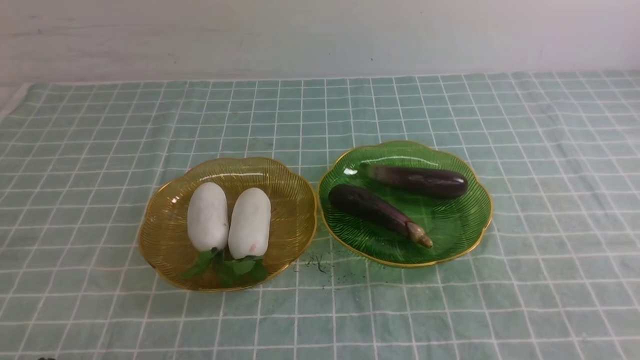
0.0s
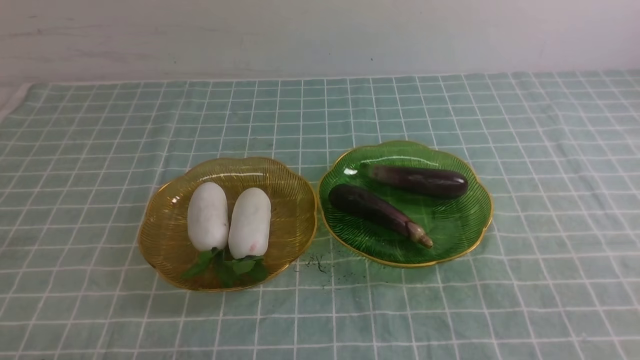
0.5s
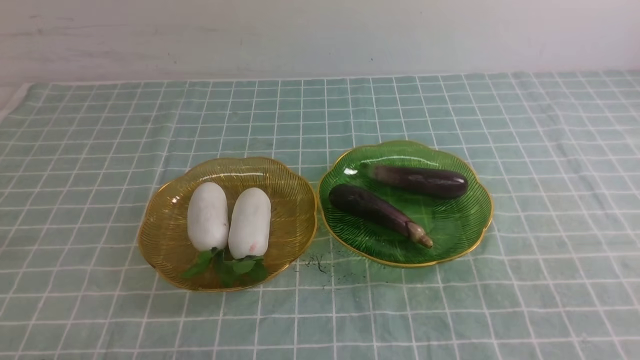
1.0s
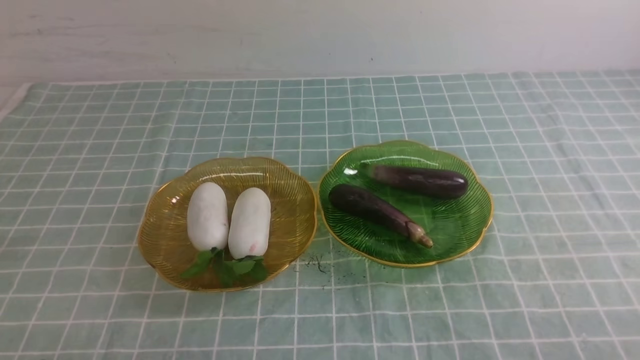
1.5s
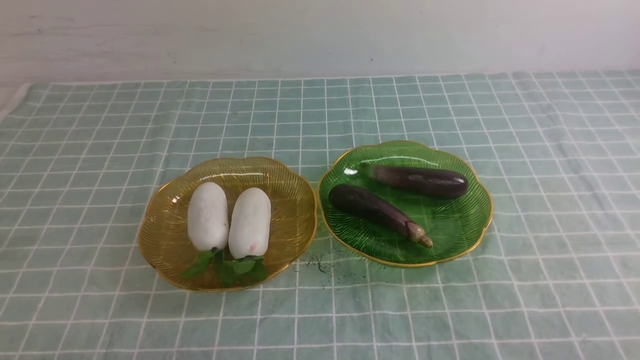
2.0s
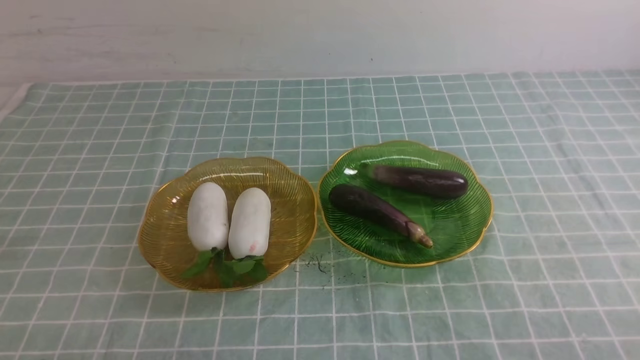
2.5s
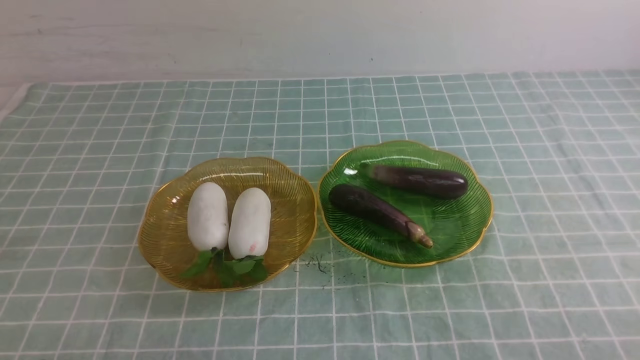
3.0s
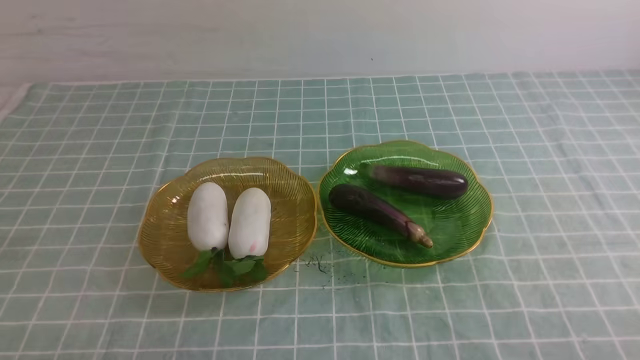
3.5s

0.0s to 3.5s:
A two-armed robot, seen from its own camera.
2.0s to 3.5s: Both grippers stay put.
